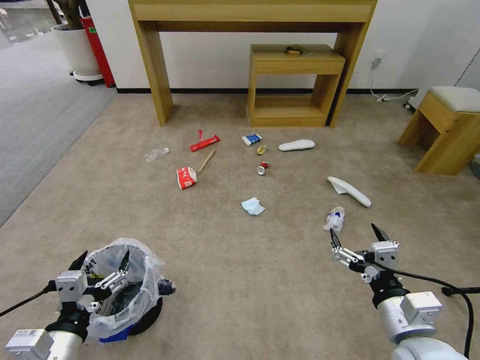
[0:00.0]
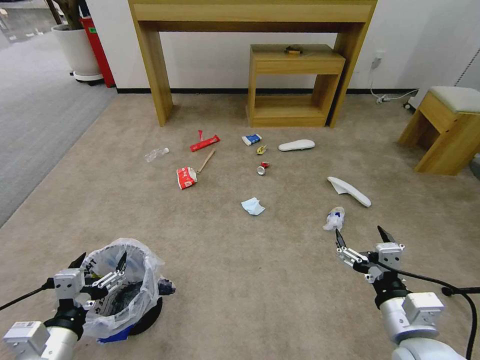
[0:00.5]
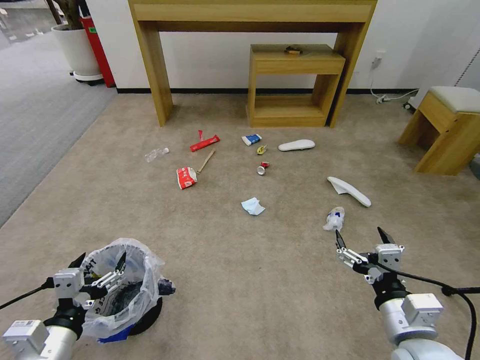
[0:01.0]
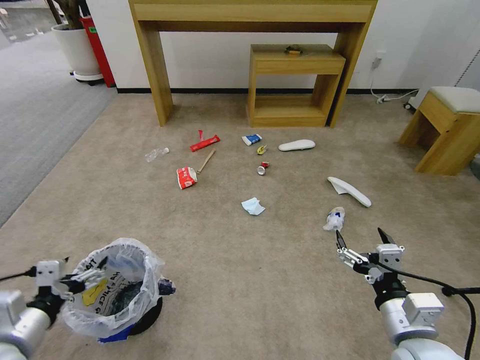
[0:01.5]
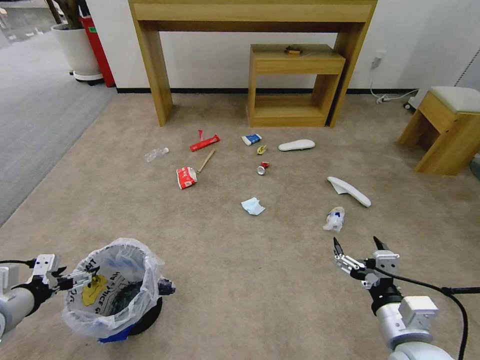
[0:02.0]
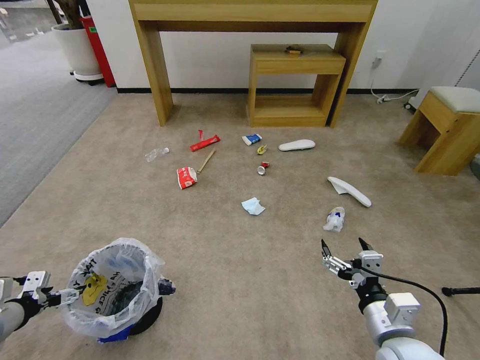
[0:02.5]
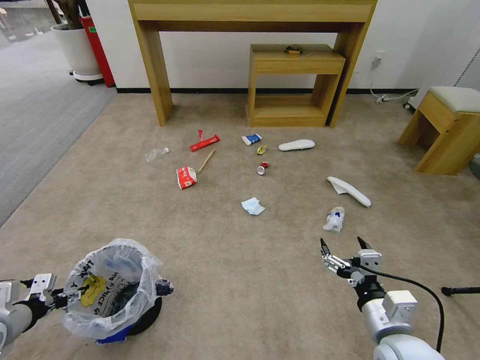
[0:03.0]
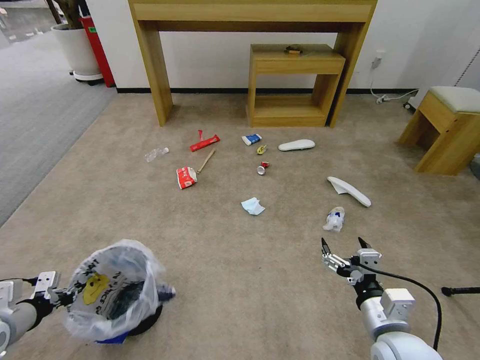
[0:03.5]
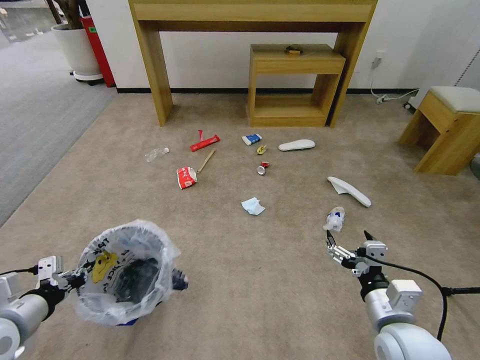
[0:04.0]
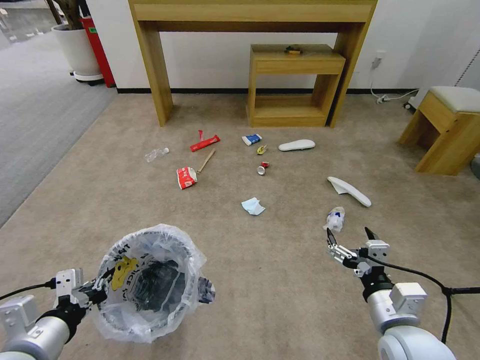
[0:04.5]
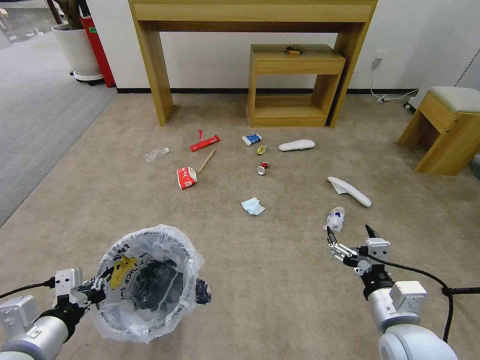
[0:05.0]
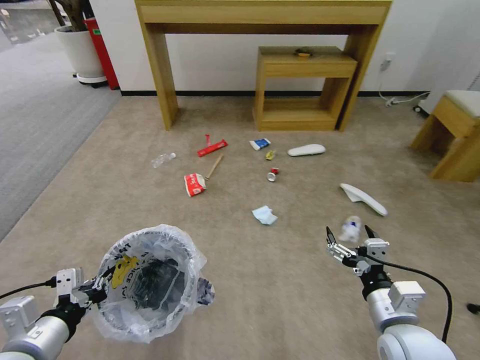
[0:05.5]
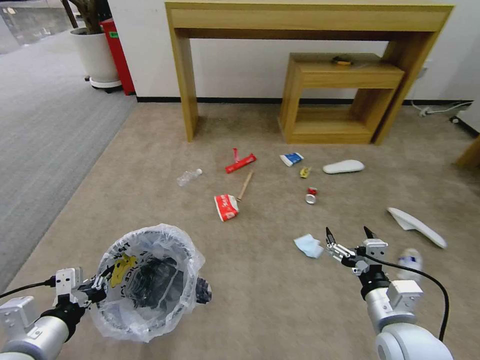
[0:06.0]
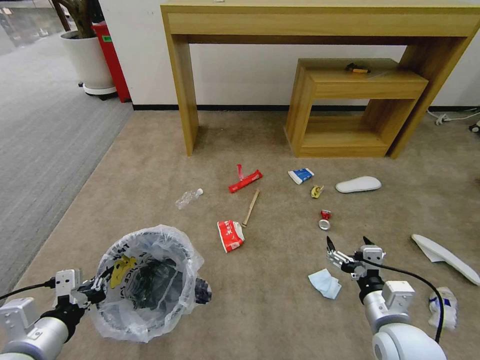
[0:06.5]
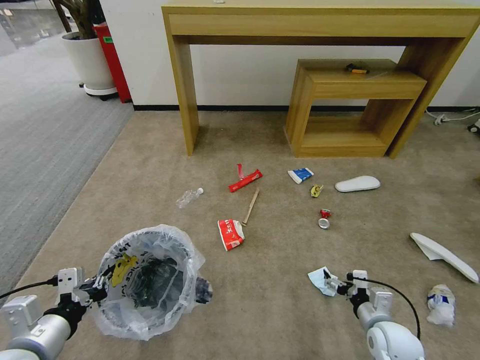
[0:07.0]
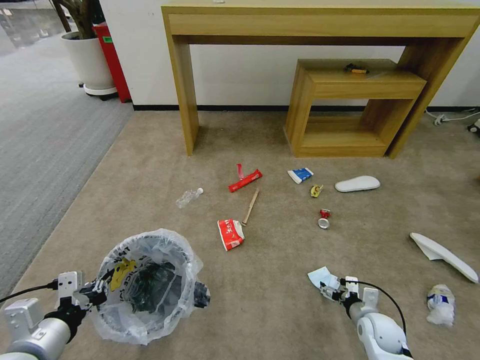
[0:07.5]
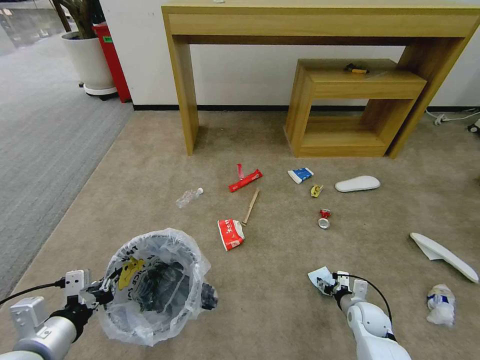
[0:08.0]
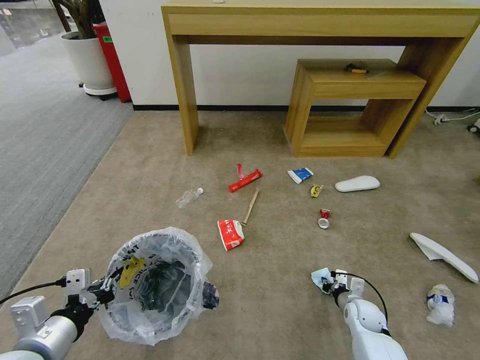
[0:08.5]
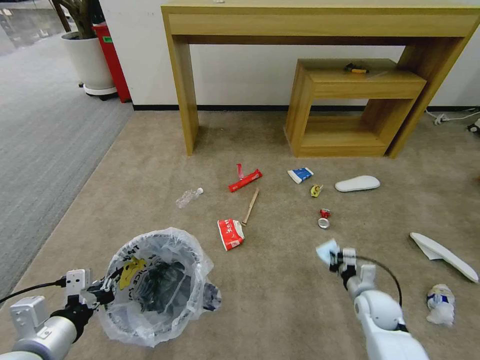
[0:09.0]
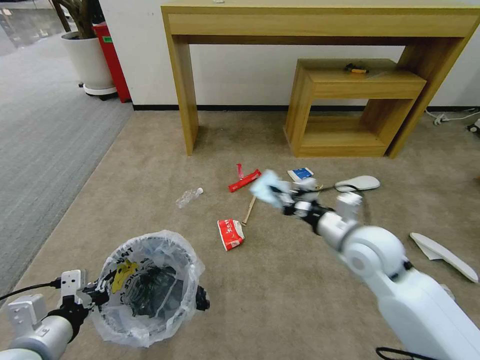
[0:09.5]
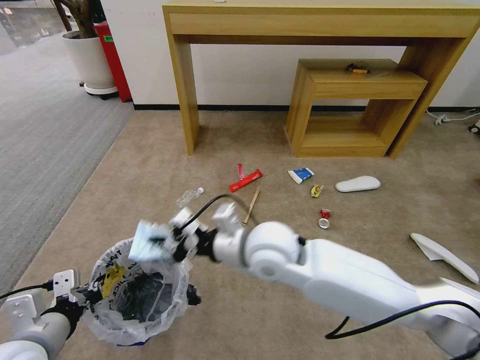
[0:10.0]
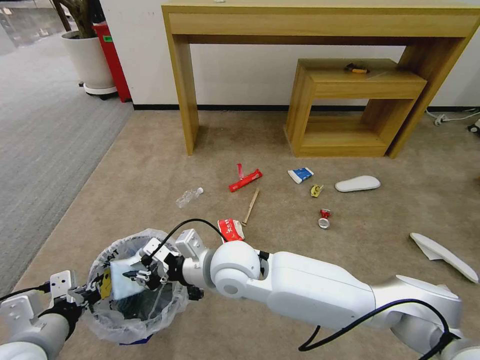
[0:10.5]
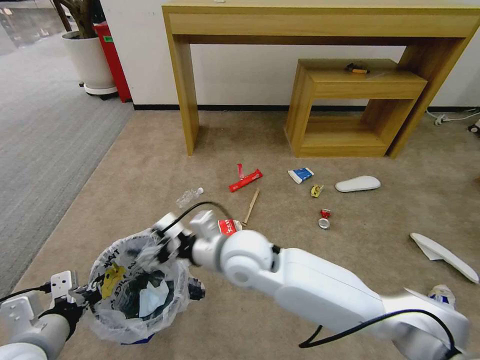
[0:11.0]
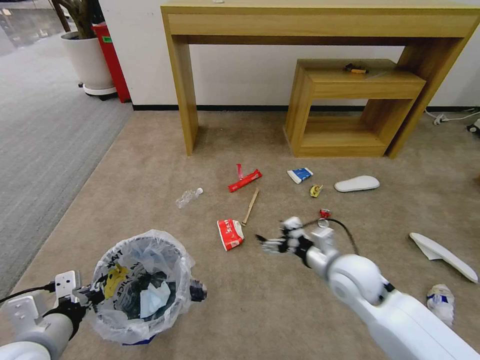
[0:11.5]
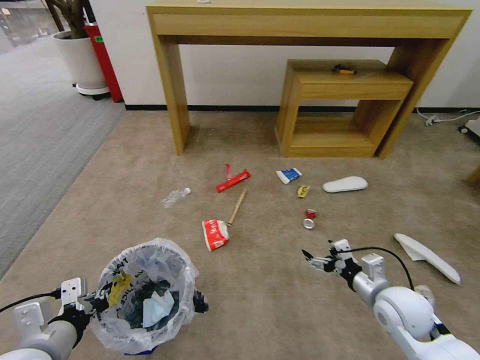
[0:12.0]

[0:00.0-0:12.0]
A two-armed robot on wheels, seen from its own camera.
Task of the whole recording: Pick up the trash bin and place the garbage on the floor into it.
0:02.0 to 0:04.0: The left gripper shifts by some 5 cm, and closes.
0:04.0 to 0:06.0: The left gripper heads to the right and backward, covering roughly 10 cm.
0:06.0 to 0:08.0: The right gripper shifts some 25 cm downward and forward.
0:08.0 to 0:10.0: The right gripper heads upward and to the left, covering some 40 cm, and closes.
0:10.0 to 0:12.0: The right gripper moves to the right and downward, roughly 25 cm, and opens its fingers.

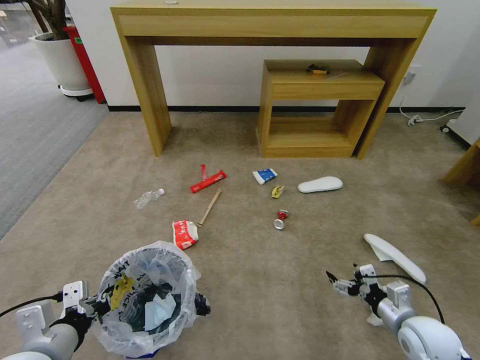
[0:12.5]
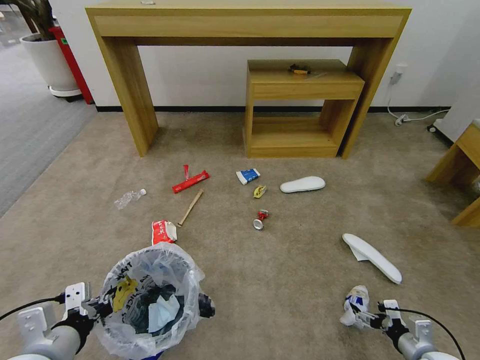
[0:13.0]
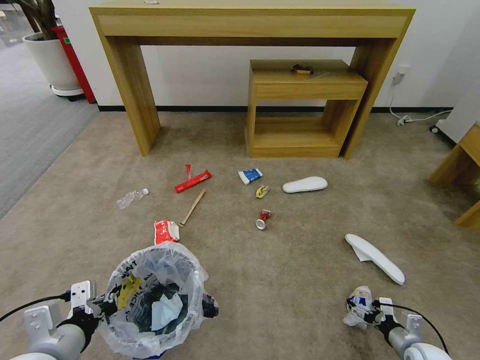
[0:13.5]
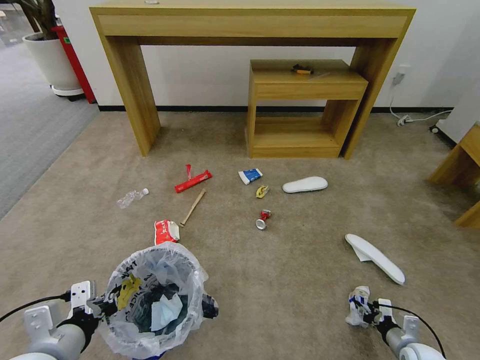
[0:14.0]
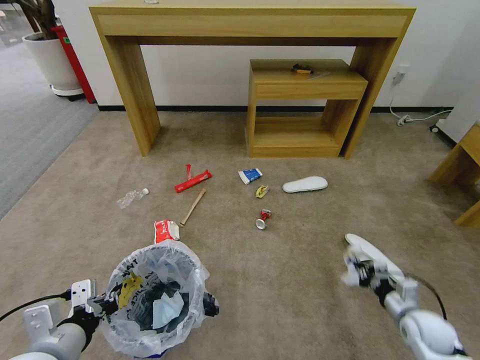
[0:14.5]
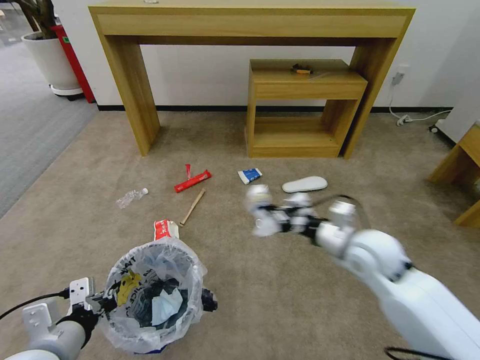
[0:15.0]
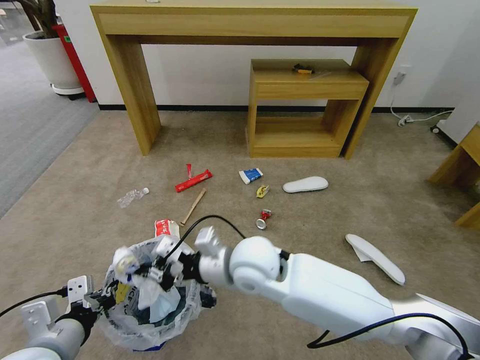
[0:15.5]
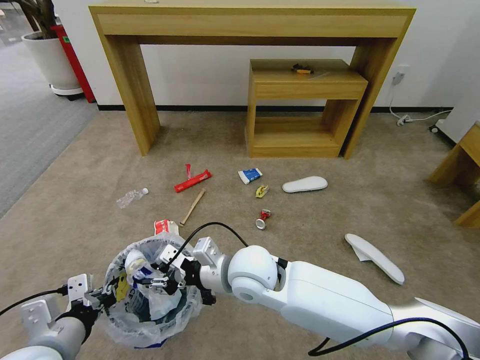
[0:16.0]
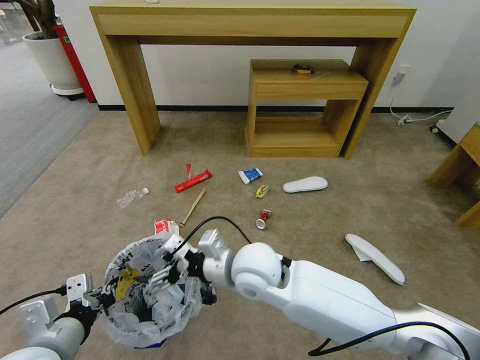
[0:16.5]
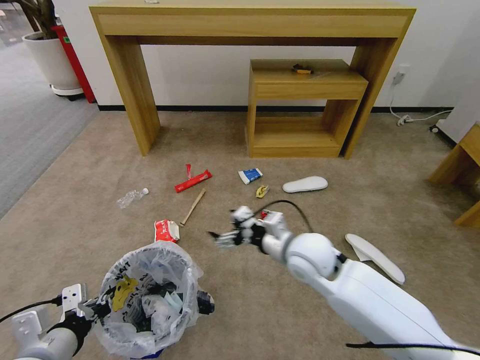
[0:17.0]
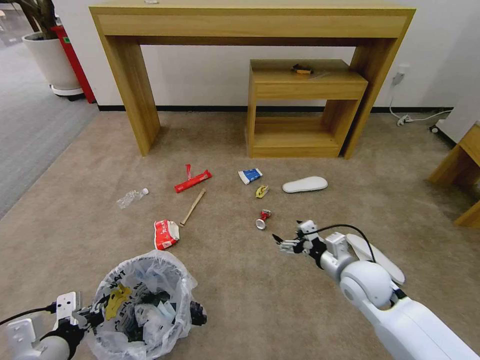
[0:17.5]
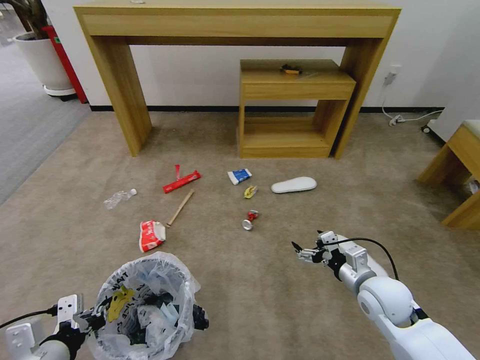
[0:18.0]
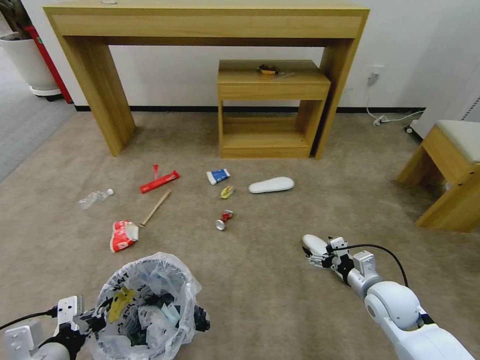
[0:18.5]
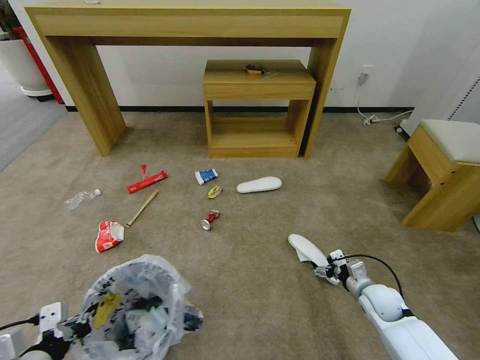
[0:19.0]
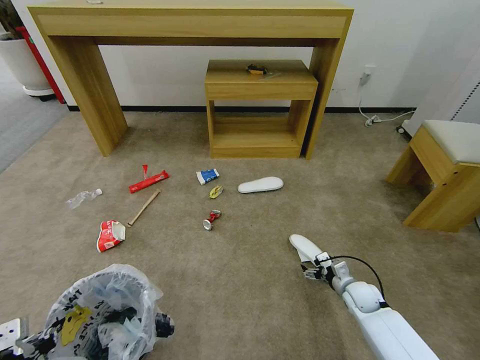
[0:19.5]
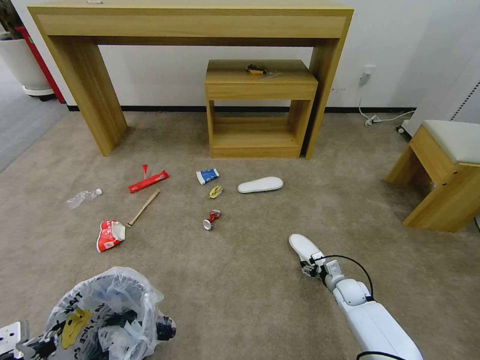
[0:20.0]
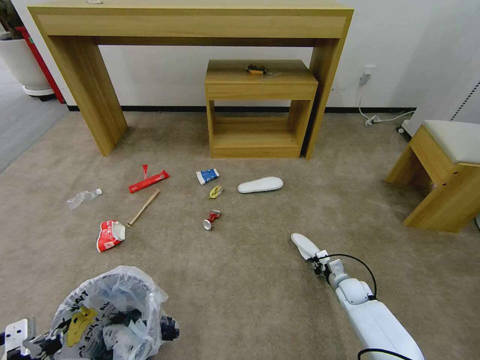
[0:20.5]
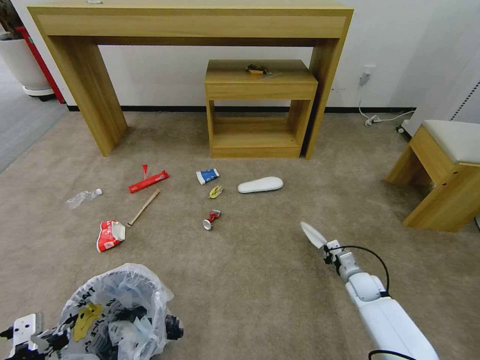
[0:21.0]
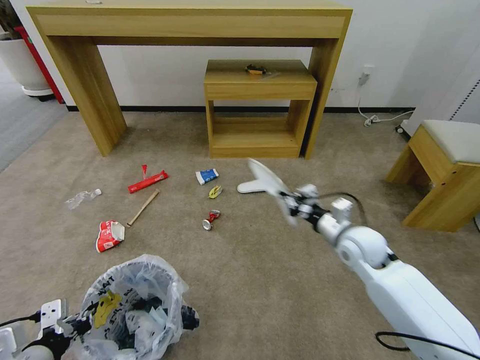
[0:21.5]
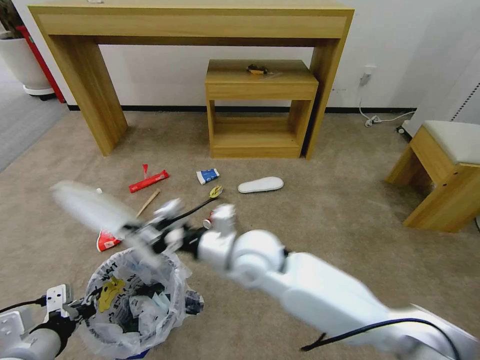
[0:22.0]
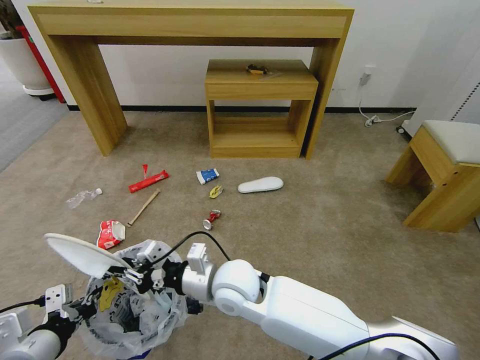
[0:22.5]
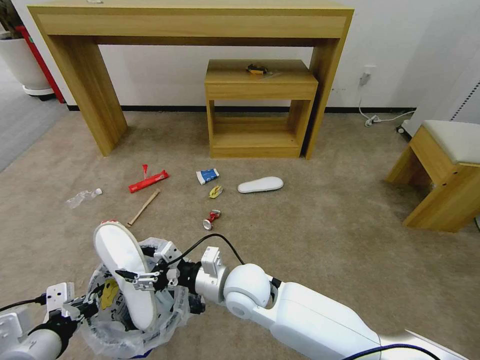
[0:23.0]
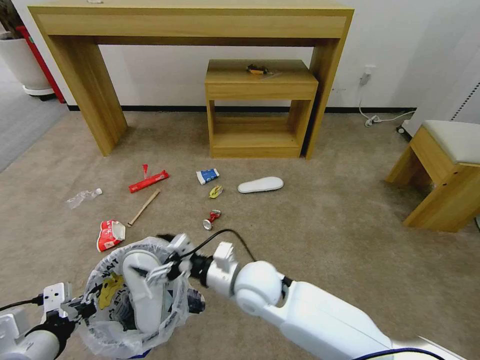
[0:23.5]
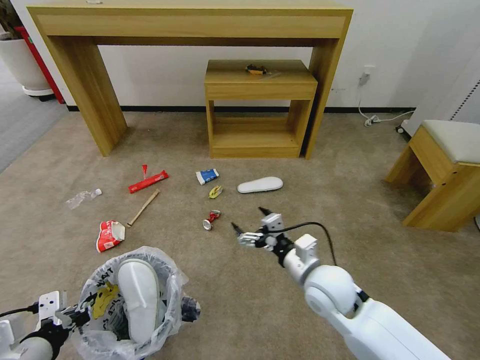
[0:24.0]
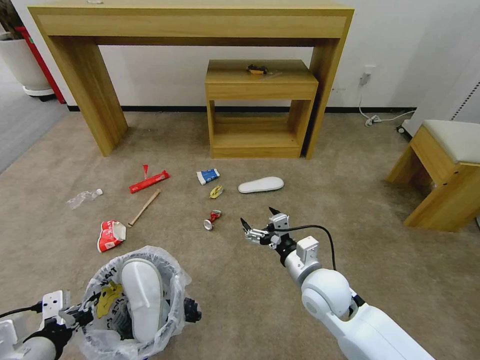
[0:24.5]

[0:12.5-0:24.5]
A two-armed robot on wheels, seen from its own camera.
Task of the whole recording: Pick up the trash bin and place the garbage on the floor into it.
0:12.5 to 0:14.5: The right gripper heads downward and to the right, covering some 10 cm, and closes.
0:14.5 to 0:16.5: The right gripper shifts some 50 cm to the left and upward, and opens up.
0:16.5 to 0:18.5: The right gripper shifts some 35 cm to the right and downward.
0:18.5 to 0:20.5: The right gripper is displaced downward and forward by roughly 20 cm, and closes its fingers; the left gripper moves to the left, some 5 cm.
0:20.5 to 0:22.5: The left gripper moves about 5 cm. The right gripper travels to the left and upward by roughly 50 cm.
0:22.5 to 0:24.5: The right gripper goes some 20 cm to the right, and opens its fingers.

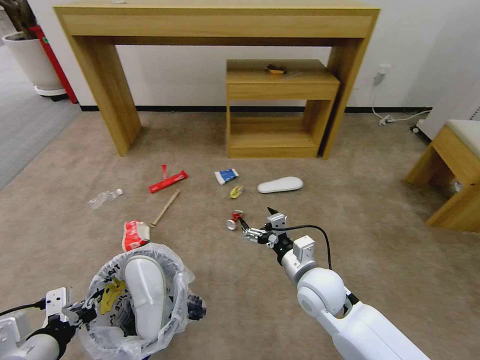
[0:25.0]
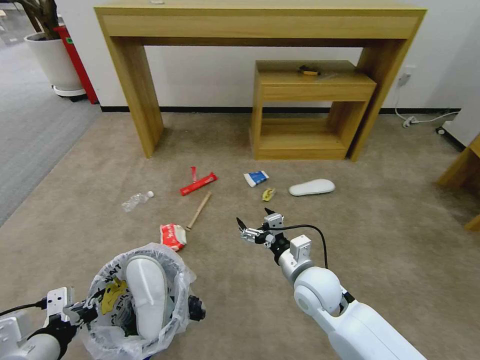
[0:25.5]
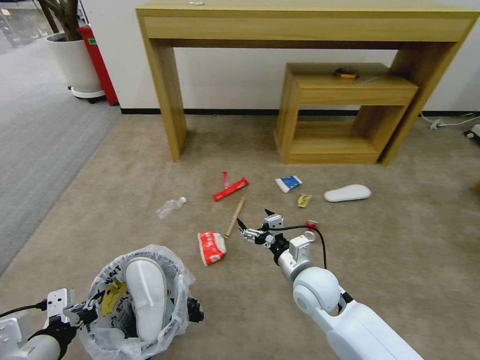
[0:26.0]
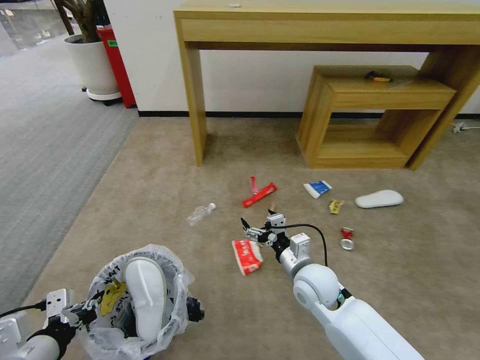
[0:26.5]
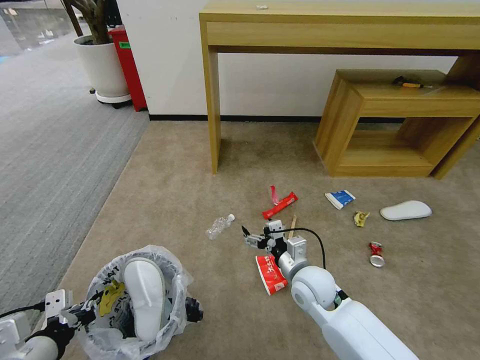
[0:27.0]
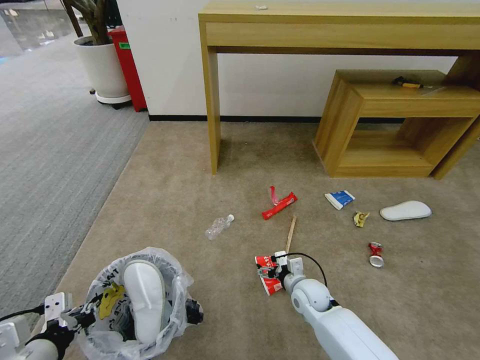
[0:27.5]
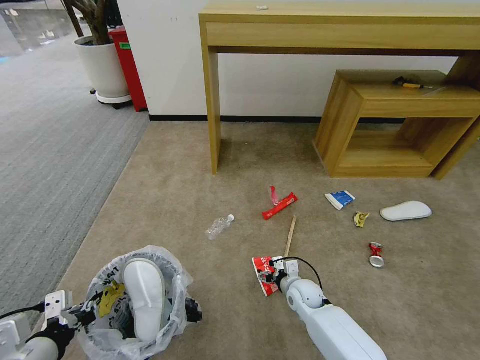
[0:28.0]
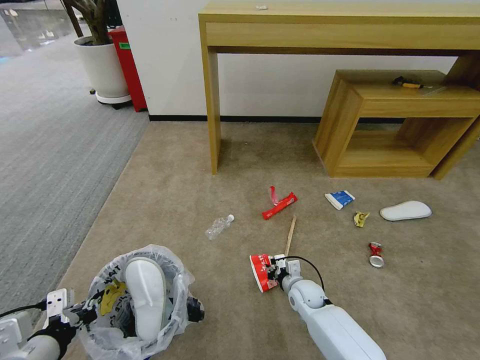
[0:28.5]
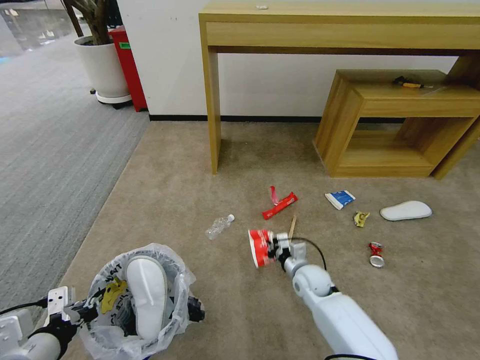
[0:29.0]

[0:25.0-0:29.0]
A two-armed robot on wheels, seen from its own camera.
Task of the whole recording: Pick up the trash bin and place the garbage on the floor into it.
0:27.0 to 0:29.0: The right gripper heads downward and forward, covering approximately 10 cm, and closes.
